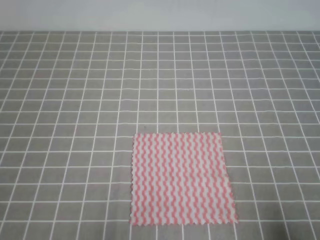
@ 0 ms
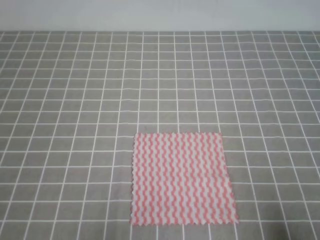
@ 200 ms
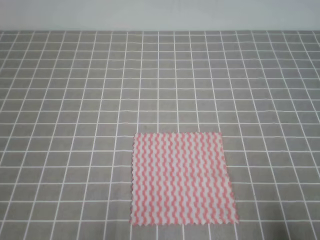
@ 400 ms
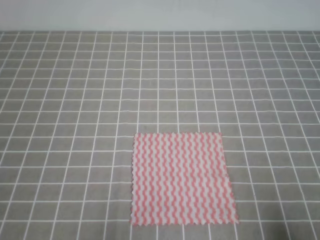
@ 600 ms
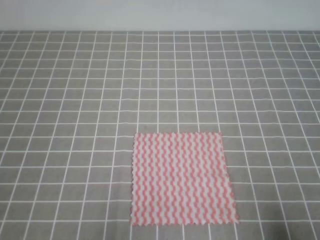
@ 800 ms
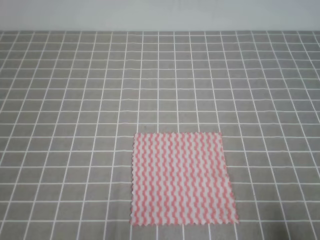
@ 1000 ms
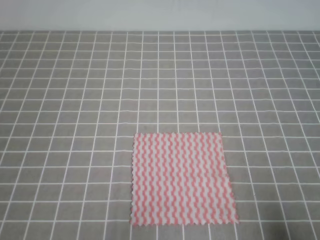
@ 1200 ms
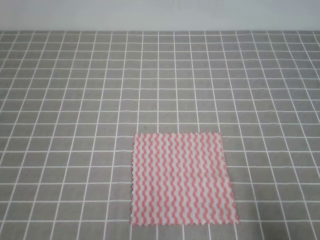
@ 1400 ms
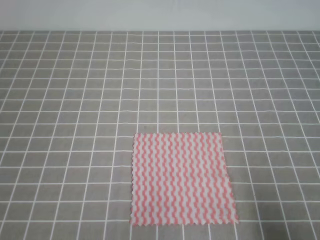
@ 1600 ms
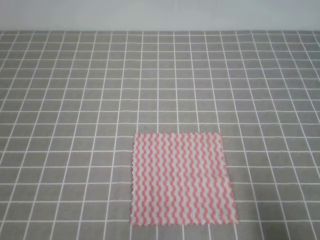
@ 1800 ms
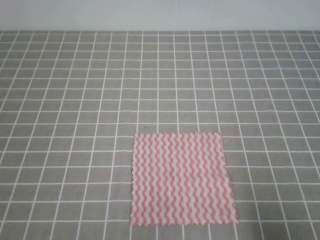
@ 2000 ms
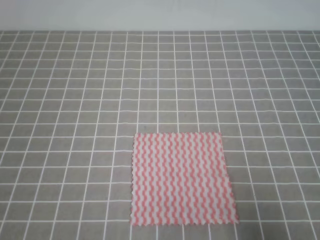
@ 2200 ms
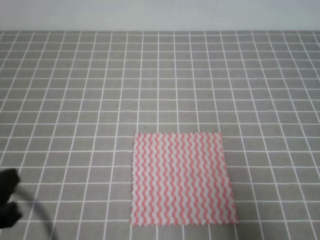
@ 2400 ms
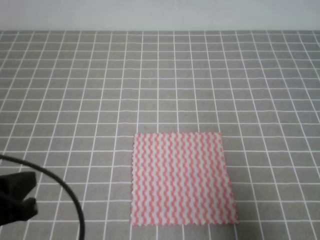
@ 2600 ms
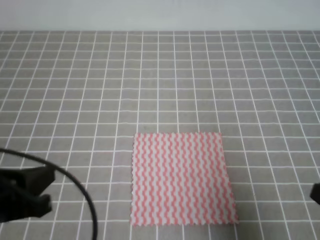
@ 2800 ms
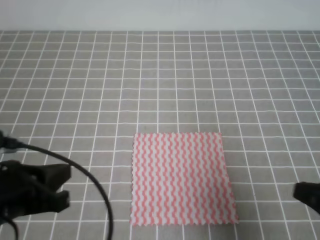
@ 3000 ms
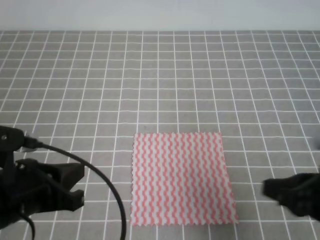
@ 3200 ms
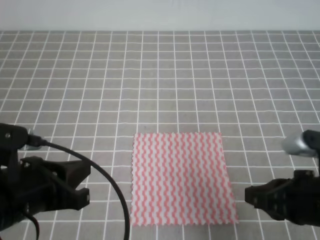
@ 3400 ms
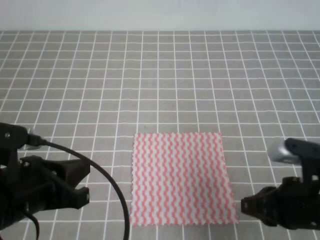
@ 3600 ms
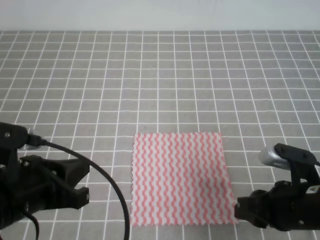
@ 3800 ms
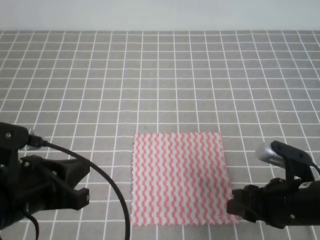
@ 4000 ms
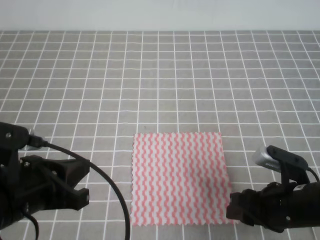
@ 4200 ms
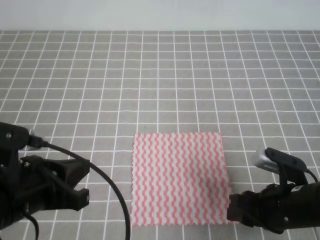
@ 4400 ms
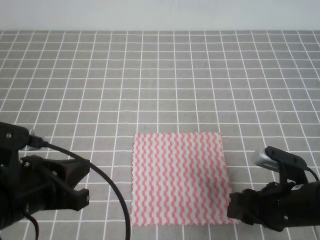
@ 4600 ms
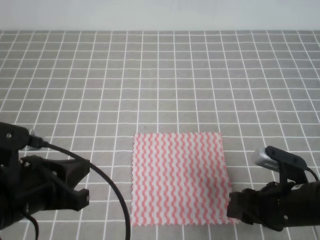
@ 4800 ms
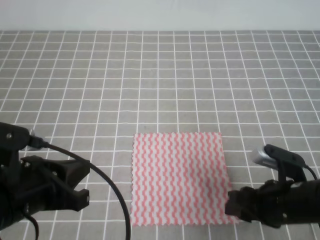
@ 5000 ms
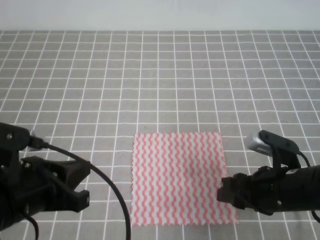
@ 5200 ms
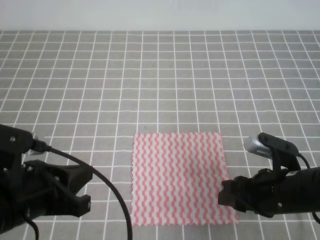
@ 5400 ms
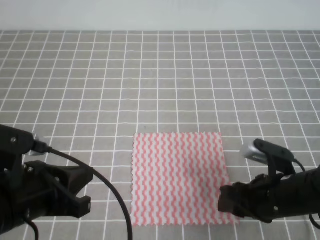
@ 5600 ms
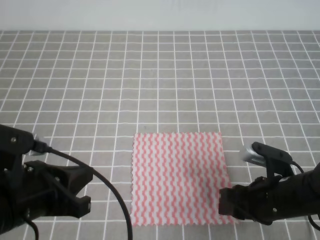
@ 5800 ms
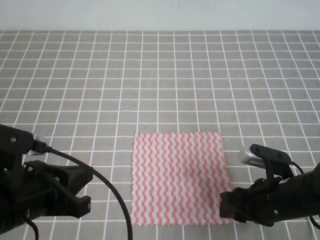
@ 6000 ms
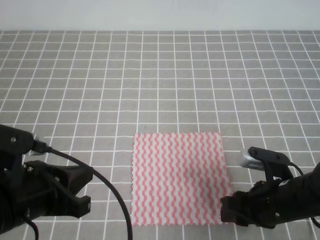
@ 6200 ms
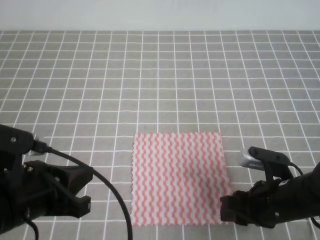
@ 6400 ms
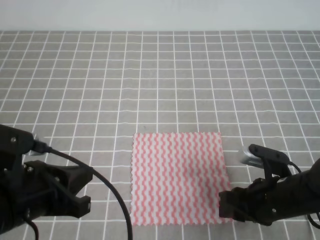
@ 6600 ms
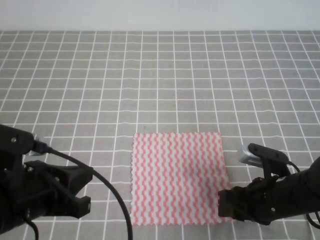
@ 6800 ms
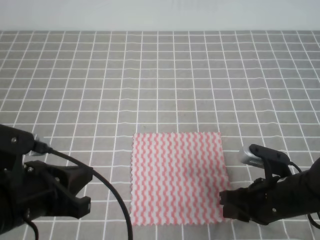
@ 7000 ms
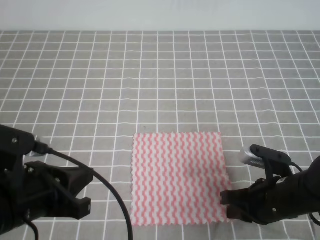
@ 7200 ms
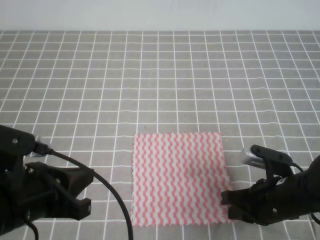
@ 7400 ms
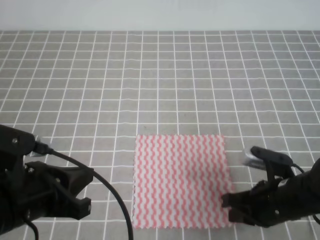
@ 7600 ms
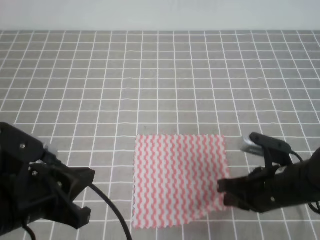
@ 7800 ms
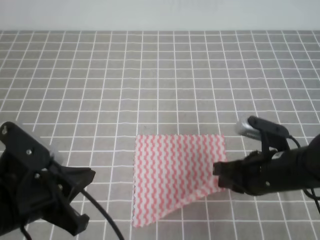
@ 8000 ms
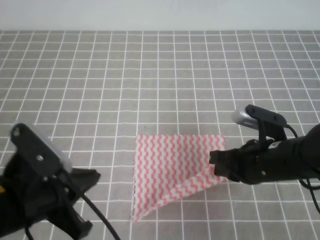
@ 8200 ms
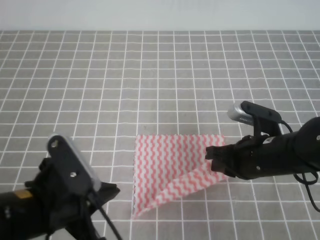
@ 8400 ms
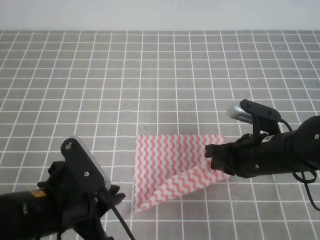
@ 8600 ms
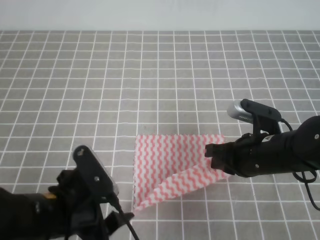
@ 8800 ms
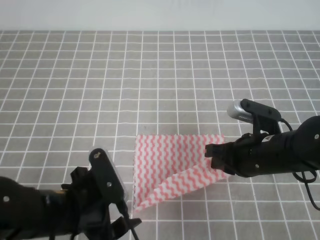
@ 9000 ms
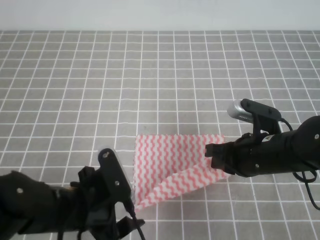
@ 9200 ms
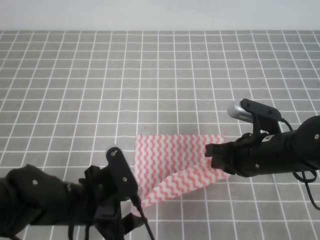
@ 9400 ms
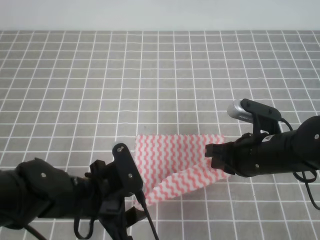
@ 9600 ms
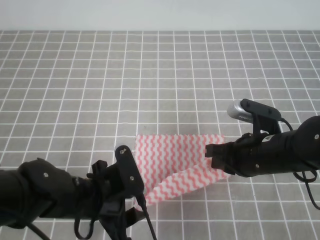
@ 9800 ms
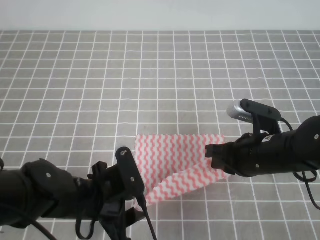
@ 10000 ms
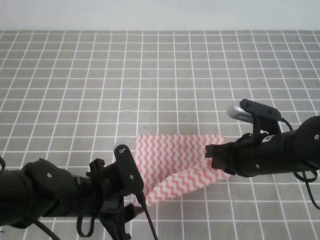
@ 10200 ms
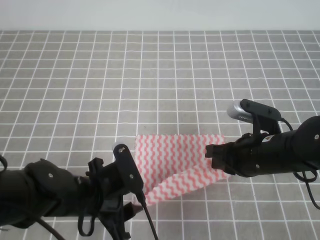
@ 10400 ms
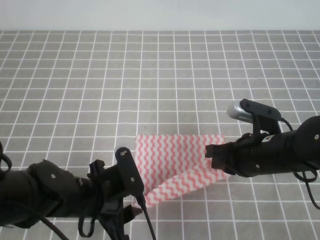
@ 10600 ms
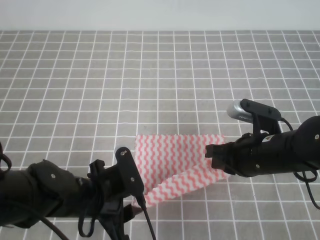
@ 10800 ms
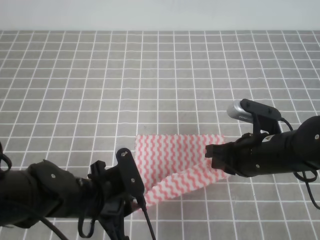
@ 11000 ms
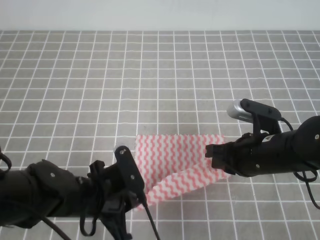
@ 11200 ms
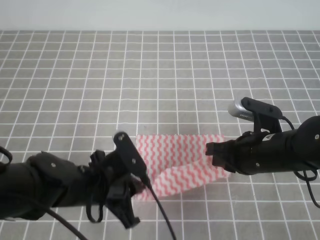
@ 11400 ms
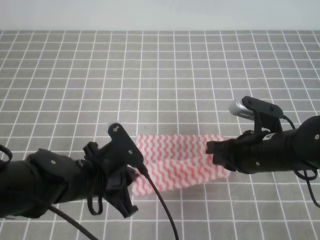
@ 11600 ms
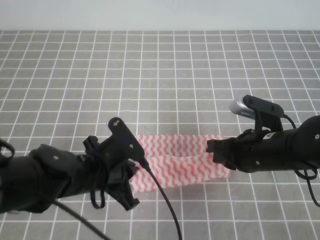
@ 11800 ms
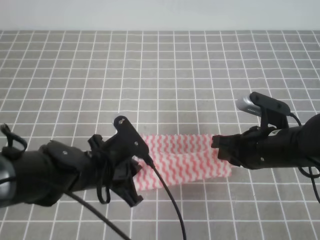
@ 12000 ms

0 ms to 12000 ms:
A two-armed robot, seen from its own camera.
1600 ms to 3000 ms: The right gripper heads forward and to the left, covering some 10 cm. The left gripper moves forward, upward and to the right, some 10 cm.
3000 ms to 4400 ms: The right gripper travels downward, to the left and forward by about 15 cm, and opens its fingers.
4400 ms to 6000 ms: The grippers make only small movements.
6000 ms to 7600 ms: The right gripper closes up.
7600 ms to 9000 ms: The right gripper changes place by some 5 cm. Meanwhile the left gripper travels downward by about 5 cm, and opens.
9000 ms to 10400 ms: The left gripper ends up roughly 5 cm from where it was.
10400 ms to 12000 ms: The left gripper closes.

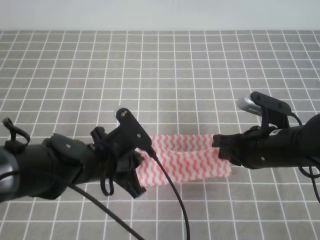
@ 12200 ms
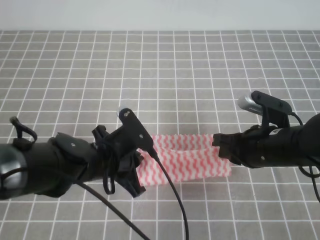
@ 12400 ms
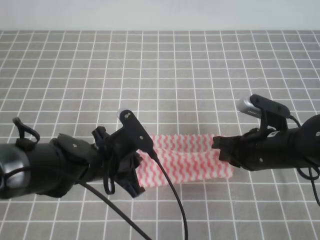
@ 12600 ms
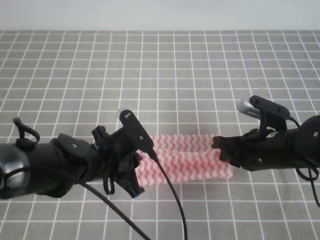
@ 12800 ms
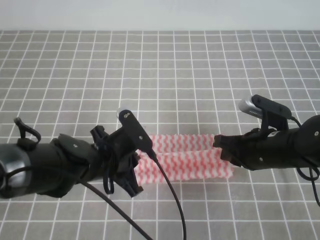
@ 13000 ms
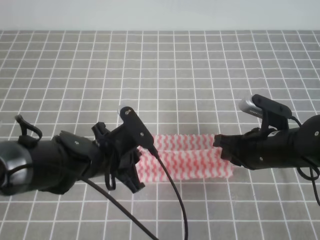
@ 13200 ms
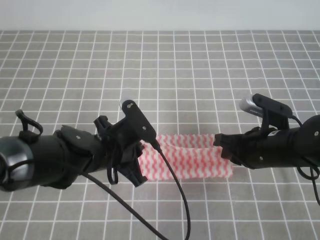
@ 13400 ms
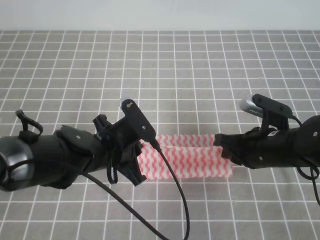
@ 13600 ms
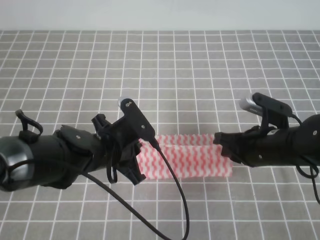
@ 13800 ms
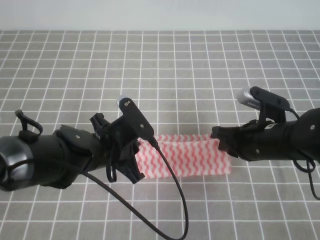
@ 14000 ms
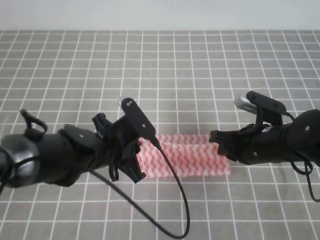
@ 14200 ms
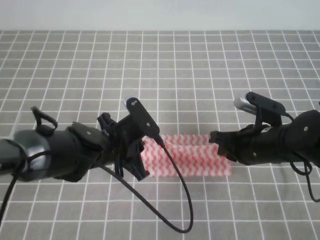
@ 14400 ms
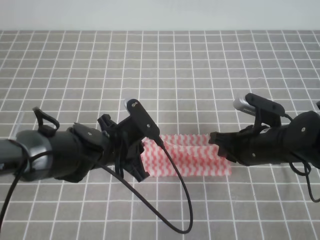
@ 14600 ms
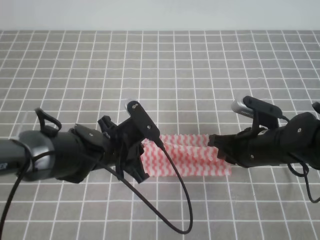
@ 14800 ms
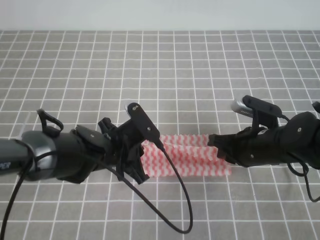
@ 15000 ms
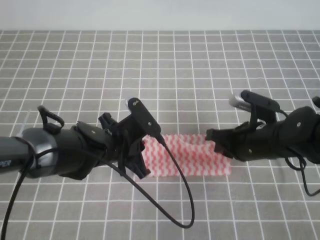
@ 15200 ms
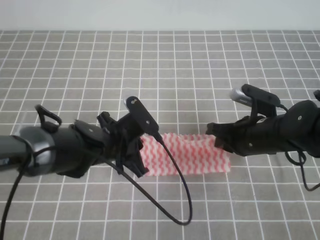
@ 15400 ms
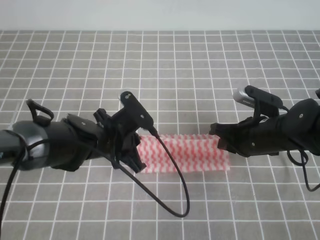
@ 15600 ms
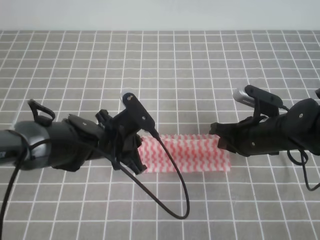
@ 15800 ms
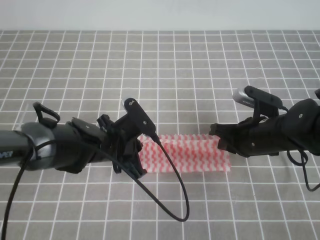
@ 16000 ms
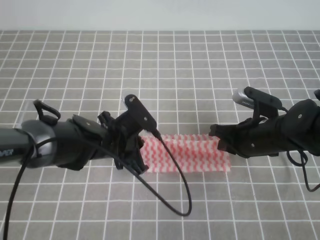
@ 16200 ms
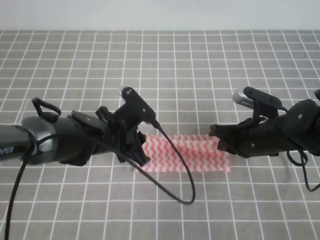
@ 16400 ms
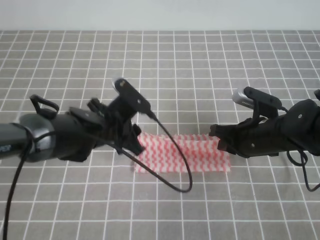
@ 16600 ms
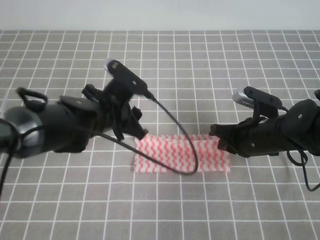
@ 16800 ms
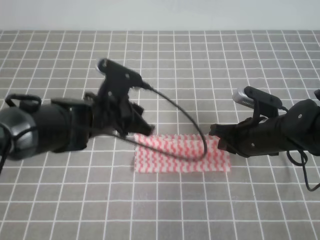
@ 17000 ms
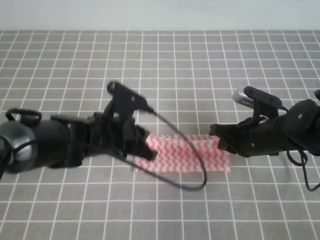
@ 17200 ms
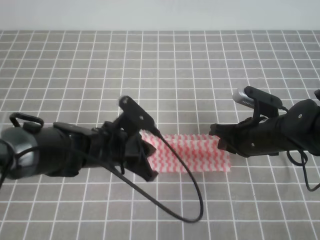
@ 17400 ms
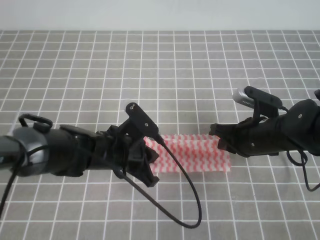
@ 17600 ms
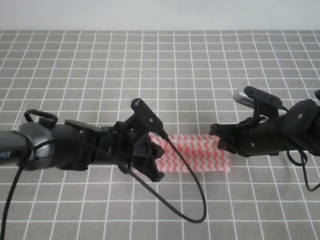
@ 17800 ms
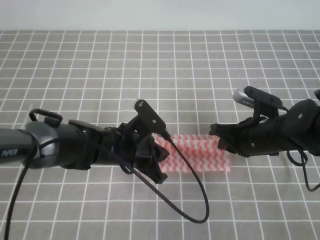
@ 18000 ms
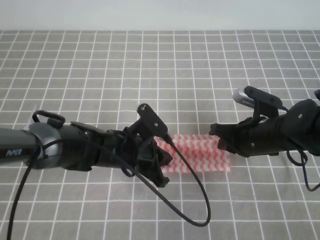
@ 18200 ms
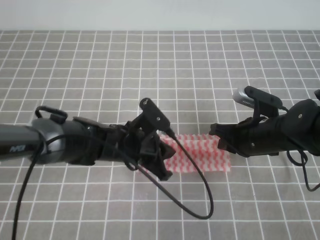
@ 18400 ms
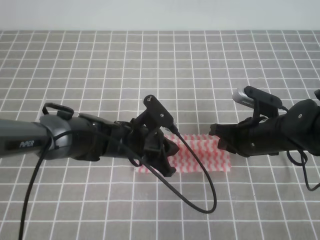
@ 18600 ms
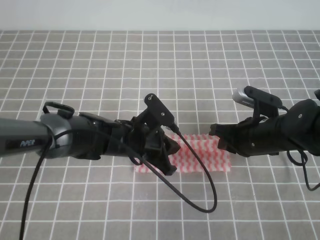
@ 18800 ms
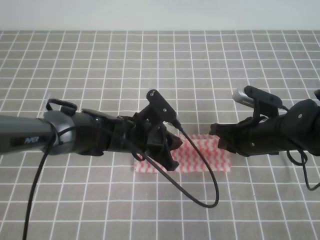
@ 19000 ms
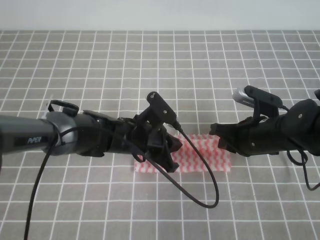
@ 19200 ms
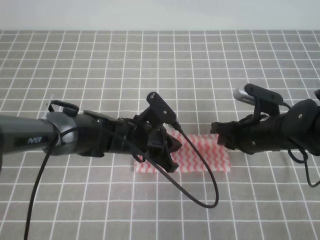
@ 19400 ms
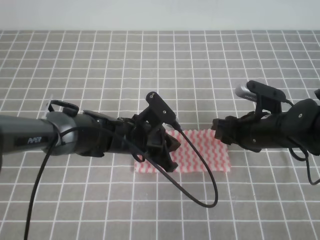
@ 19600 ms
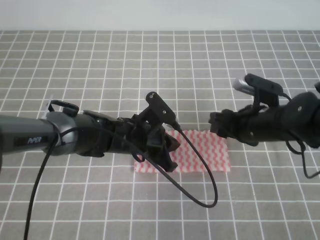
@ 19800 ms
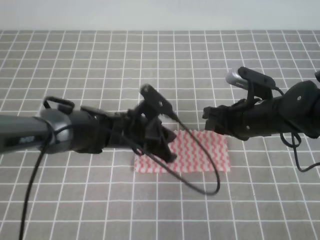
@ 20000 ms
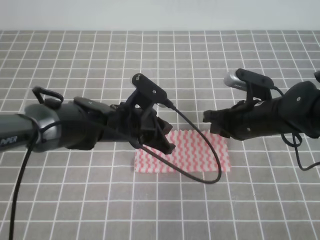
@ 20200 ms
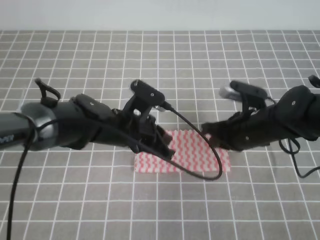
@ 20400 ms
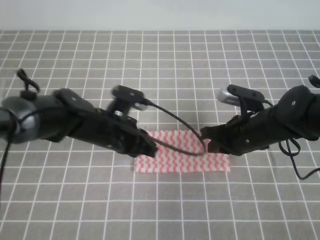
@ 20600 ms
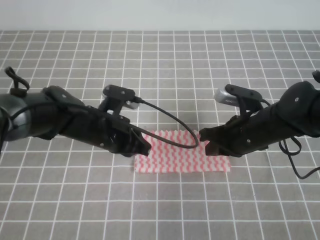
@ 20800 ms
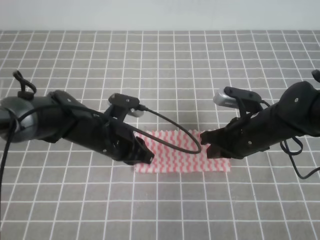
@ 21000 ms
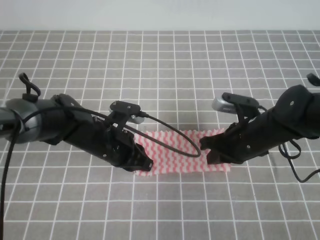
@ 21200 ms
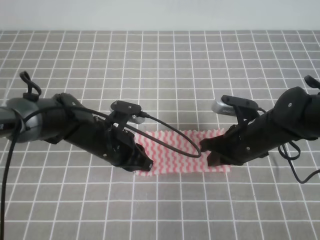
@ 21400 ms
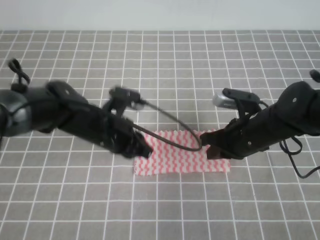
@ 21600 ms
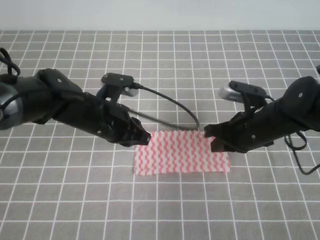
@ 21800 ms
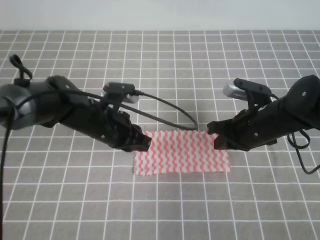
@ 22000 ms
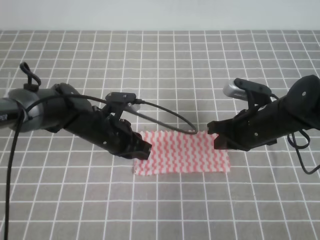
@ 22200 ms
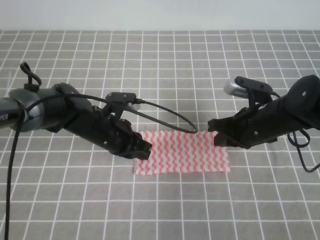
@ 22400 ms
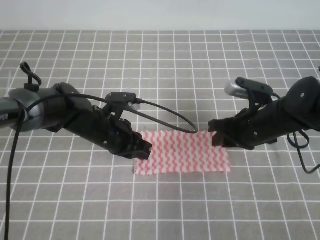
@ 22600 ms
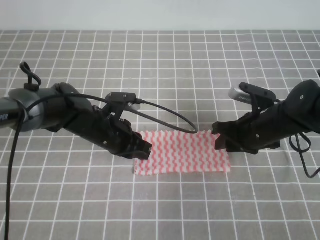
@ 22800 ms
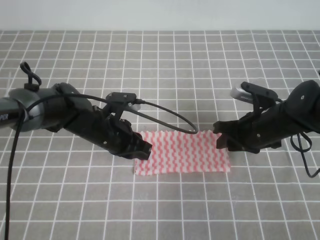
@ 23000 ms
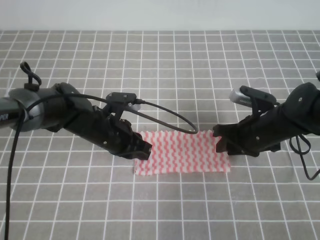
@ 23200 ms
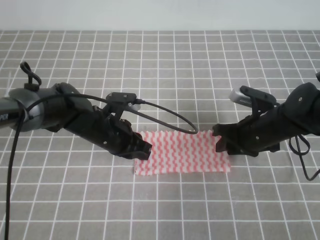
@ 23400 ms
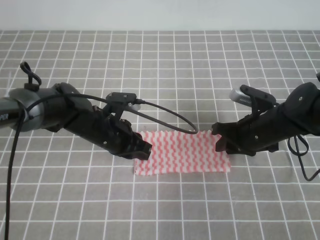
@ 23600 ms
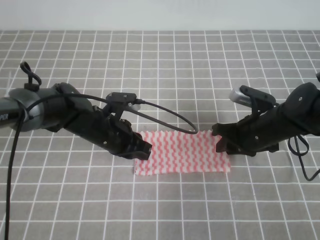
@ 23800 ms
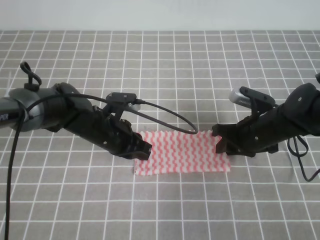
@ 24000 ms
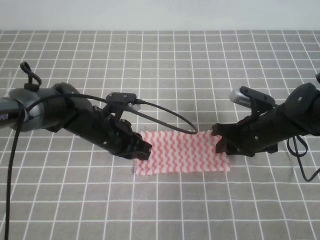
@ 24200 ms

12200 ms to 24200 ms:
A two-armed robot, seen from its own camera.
Step, 12400 ms to 13200 ms: Tidy up the towels.
Step, 13400 ms to 17600 ms: Fold the towel from right to left with the right gripper.
Step, 18000 ms to 19400 ms: Tidy up the towels.
12200 ms to 15200 ms: The grippers stay close to where they were, moving slightly.
15200 ms to 16600 ms: The left gripper opens its fingers.
16600 ms to 18200 ms: The left gripper moves about 5 cm, and closes up.
18200 ms to 19800 ms: The right gripper opens up.
19800 ms to 21200 ms: The left gripper goes roughly 5 cm to the left, while the right gripper closes its fingers.
21200 ms to 22600 ms: The right gripper opens its fingers.
22600 ms to 24200 ms: There are only small adjustments of the grippers.
